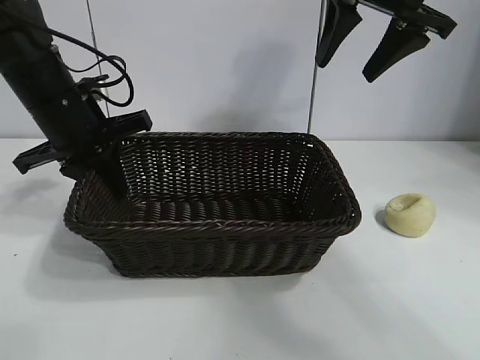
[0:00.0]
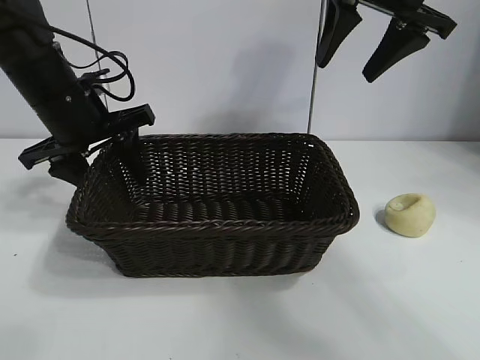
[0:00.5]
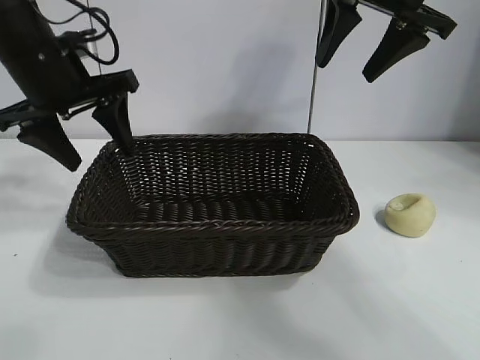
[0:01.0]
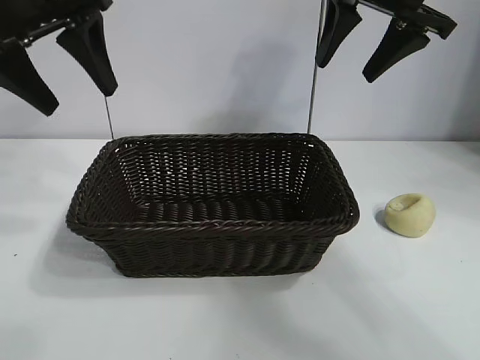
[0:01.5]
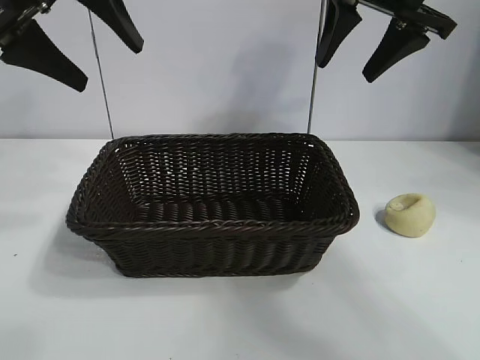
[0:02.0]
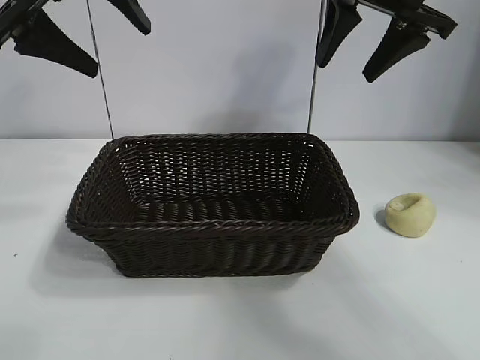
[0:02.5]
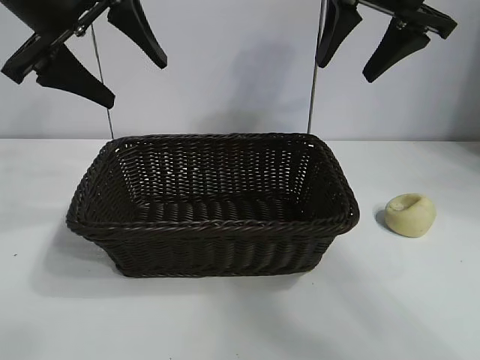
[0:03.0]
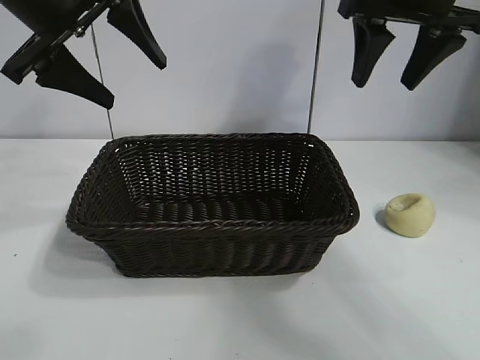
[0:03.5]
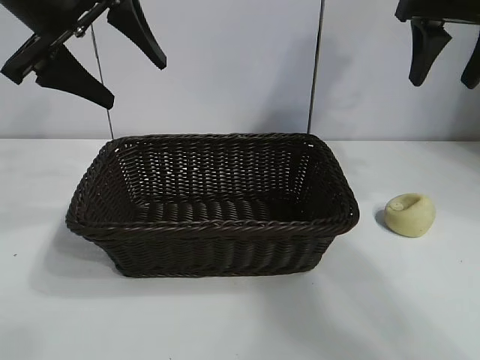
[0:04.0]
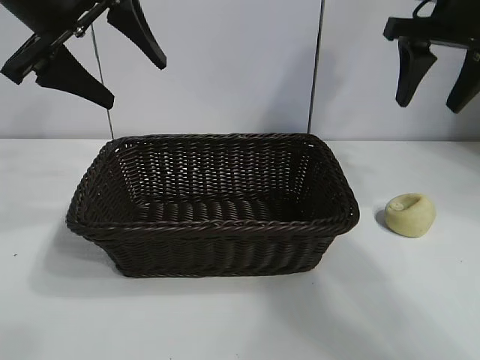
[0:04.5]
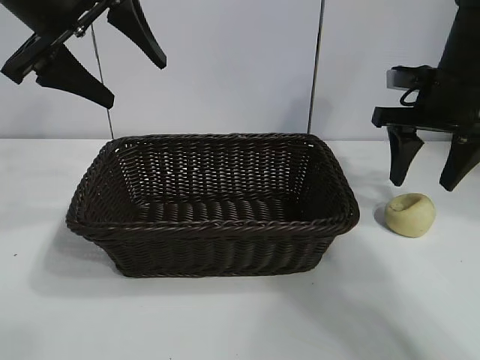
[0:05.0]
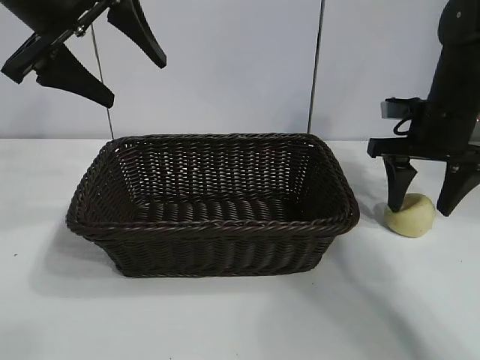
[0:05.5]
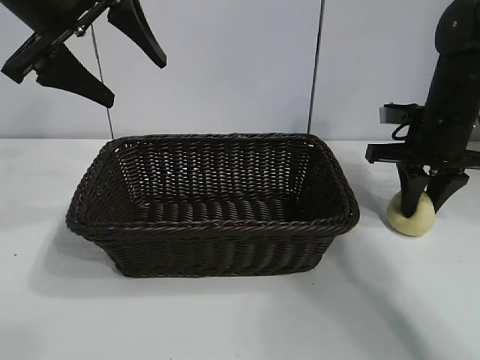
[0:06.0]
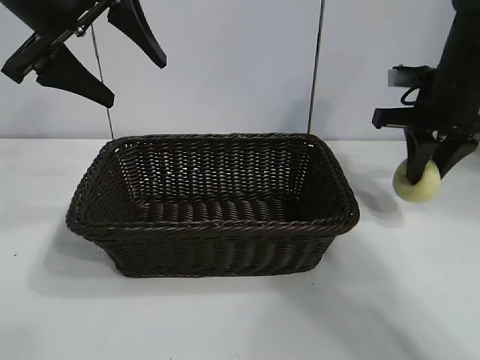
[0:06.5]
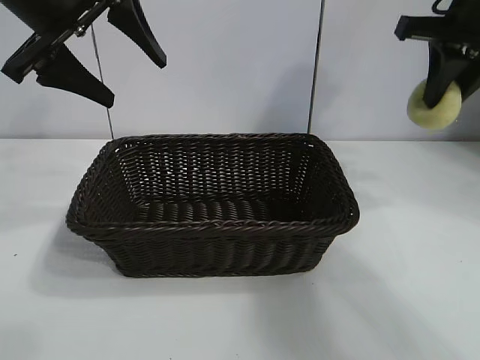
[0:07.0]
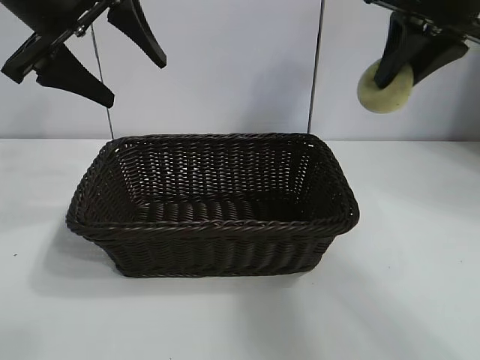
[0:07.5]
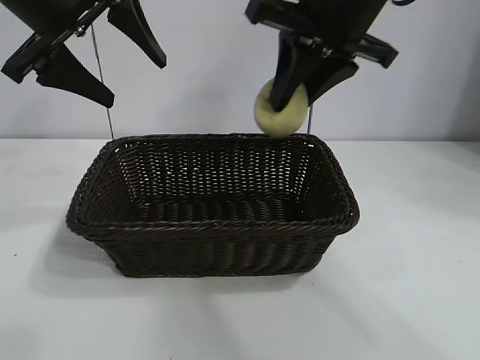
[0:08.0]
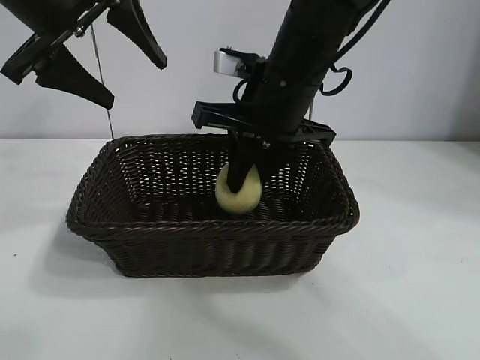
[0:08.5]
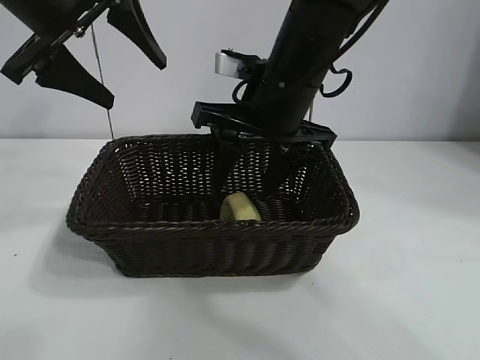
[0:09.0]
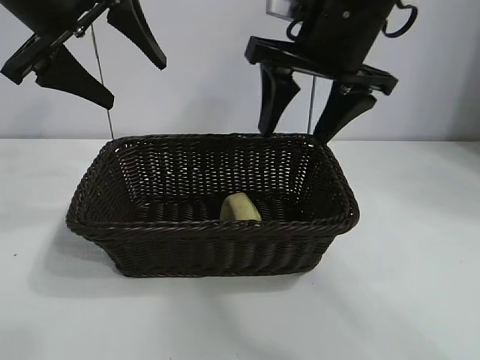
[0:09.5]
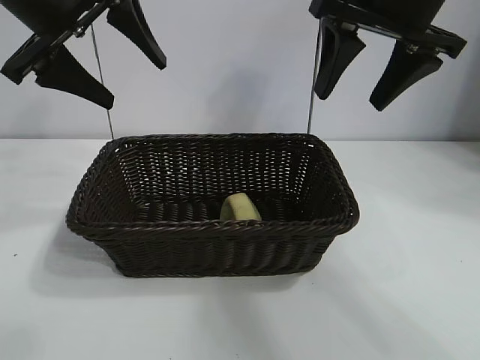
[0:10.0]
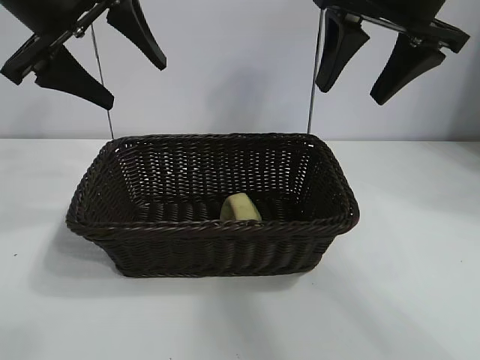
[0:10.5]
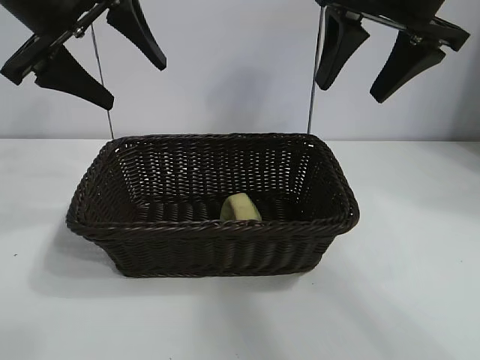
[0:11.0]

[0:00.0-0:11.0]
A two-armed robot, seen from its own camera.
Task of the whole recording: pick up the egg yolk pastry and put it into the basket.
Step, 0:01.0 to 0:05.5: Grasp egg yolk pastry with right gripper.
Step, 0:06.5 to 0:09.0: Place the egg yolk pastry in the basket with right gripper.
